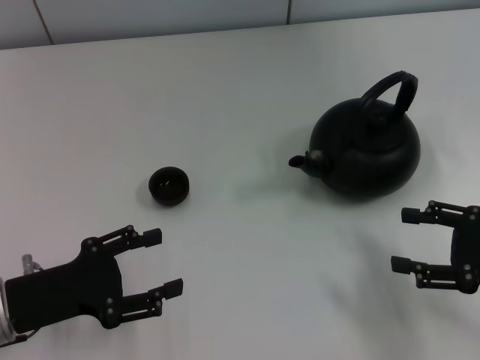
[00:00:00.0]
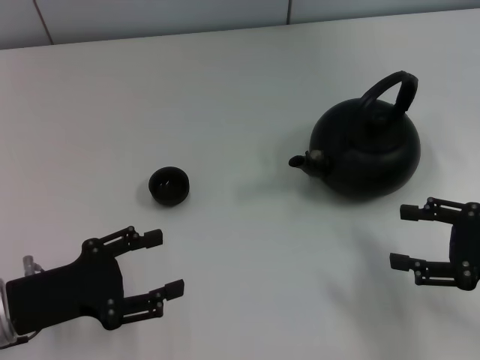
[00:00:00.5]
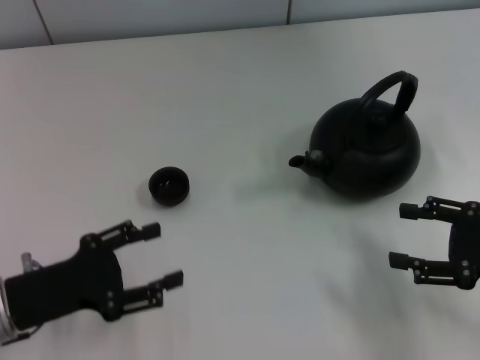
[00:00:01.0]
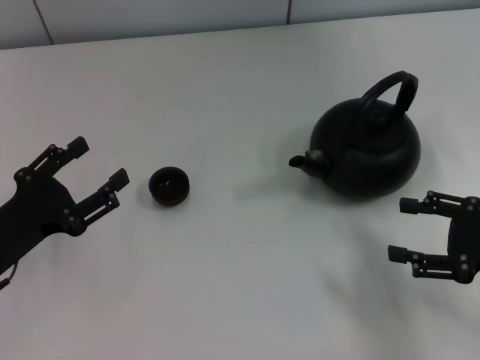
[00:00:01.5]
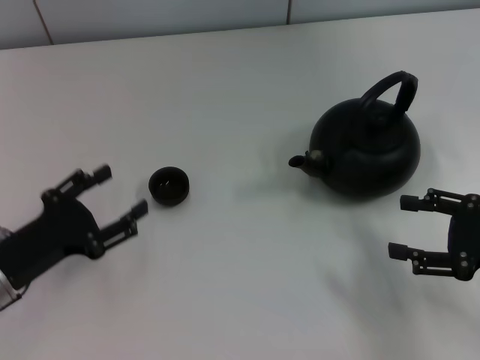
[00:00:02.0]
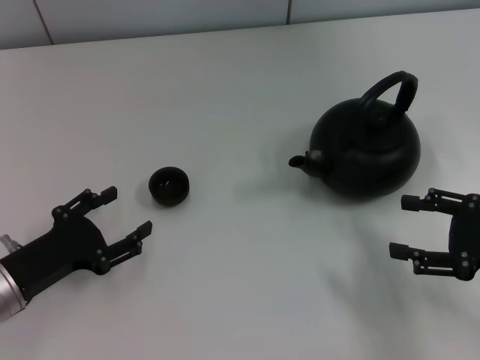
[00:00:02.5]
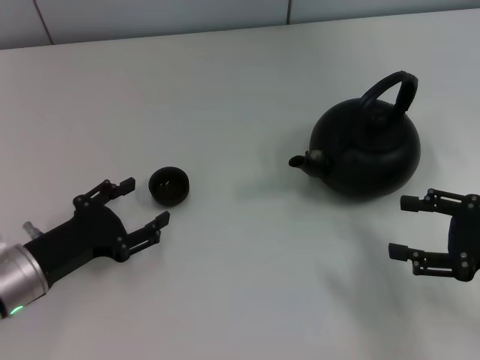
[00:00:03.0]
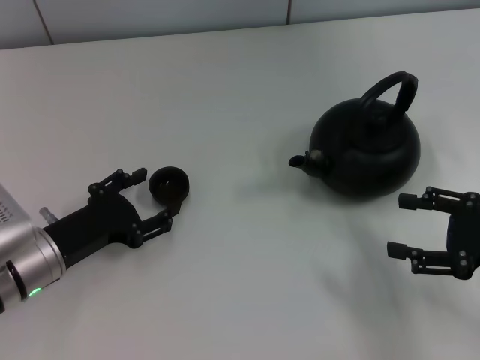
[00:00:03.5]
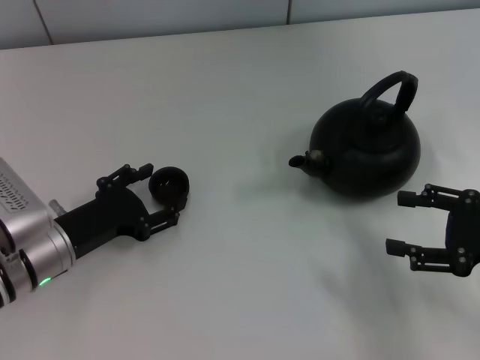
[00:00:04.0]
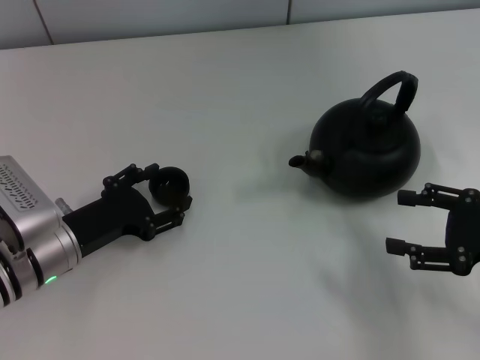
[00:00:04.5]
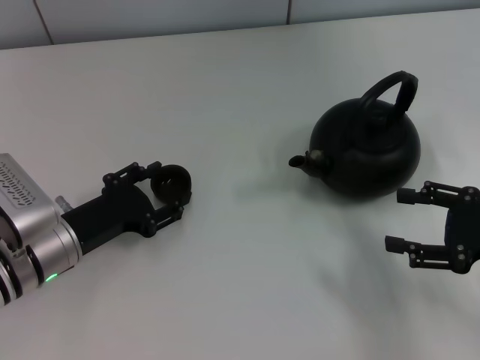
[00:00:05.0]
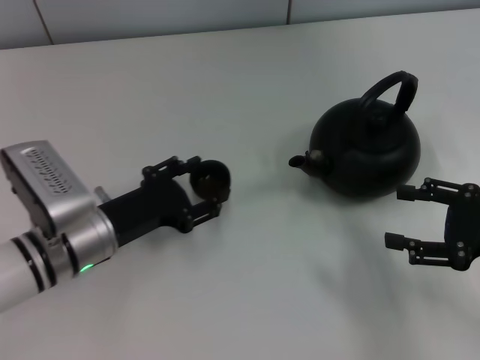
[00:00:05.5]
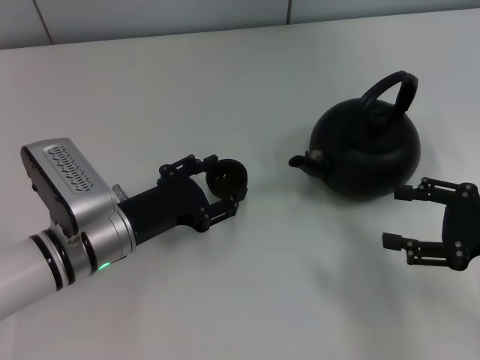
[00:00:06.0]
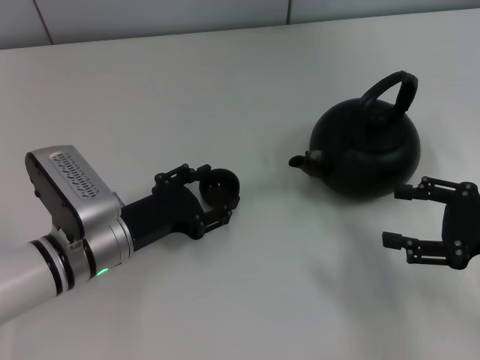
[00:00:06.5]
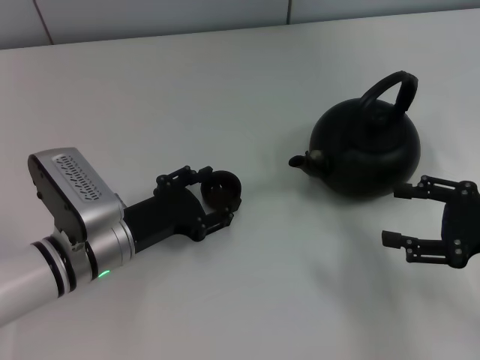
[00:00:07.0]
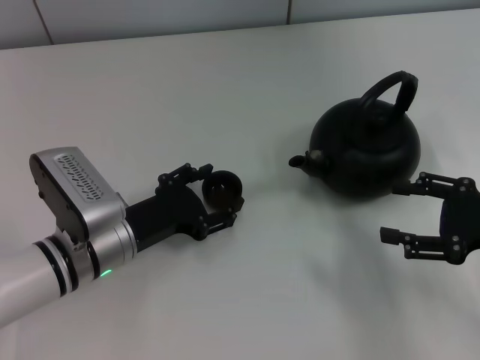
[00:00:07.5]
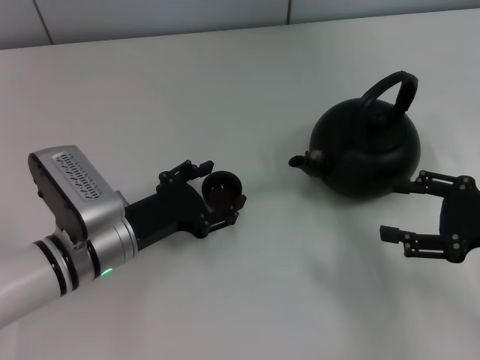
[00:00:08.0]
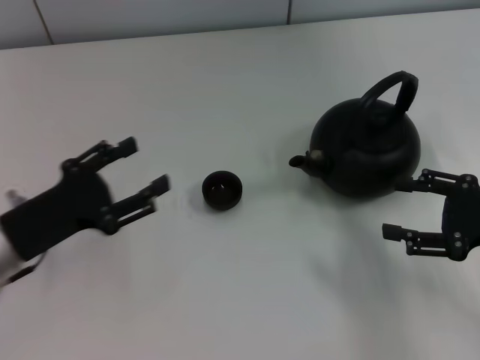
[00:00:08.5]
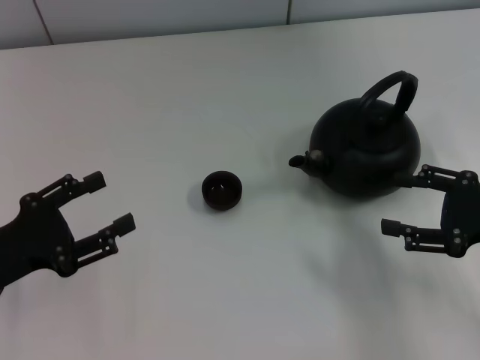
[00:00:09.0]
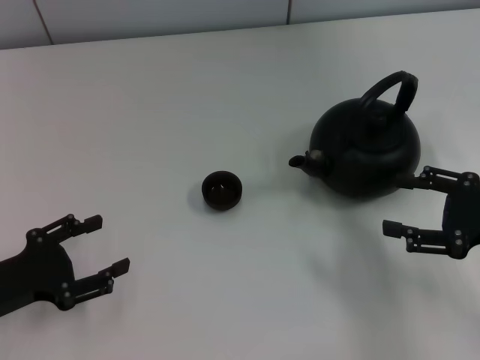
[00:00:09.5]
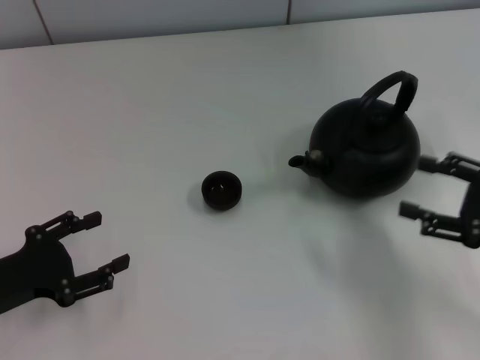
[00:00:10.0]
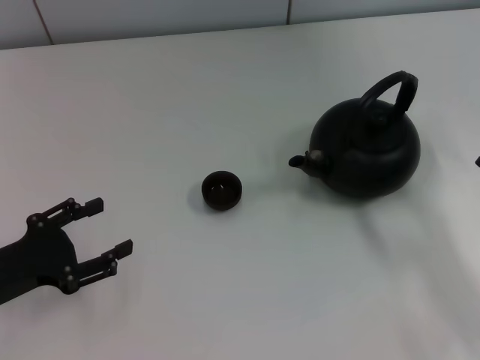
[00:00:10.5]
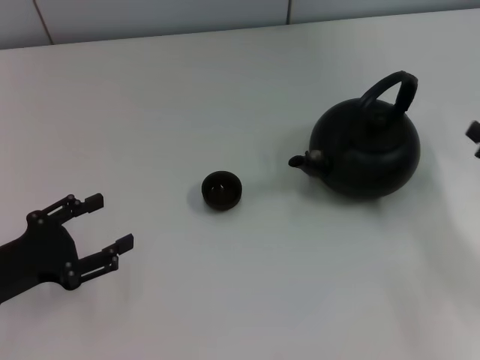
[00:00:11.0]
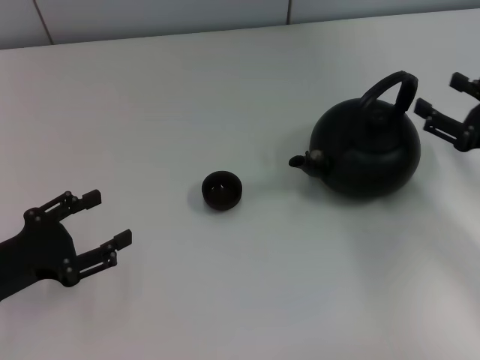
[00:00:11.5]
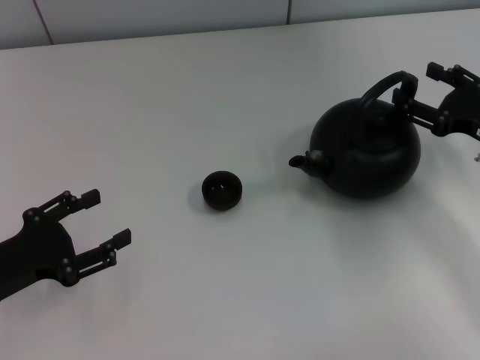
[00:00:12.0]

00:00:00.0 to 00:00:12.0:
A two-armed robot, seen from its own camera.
Task of the whole recording: Grasp the handle of the teapot with one hand and pour tea into the teacup.
Step, 00:00:00.0 to 00:00:05.0: Pick up the teacup with the left gripper.
Step, 00:00:05.5 to 00:00:08.0: Place the teacup in the center of view with the left gripper.
00:00:02.0 to 00:00:04.0: The left gripper shifts by about 5 cm.
00:00:04.0 to 00:00:06.0: The left gripper goes approximately 5 cm to the right, and closes up.
00:00:06.0 to 00:00:08.0: The left gripper opens its fingers.
00:00:08.0 to 00:00:10.0: The left gripper shifts roughly 15 cm to the left and backward.
00:00:10.0 to 00:00:12.0: The right gripper heads forward, covering about 10 cm.

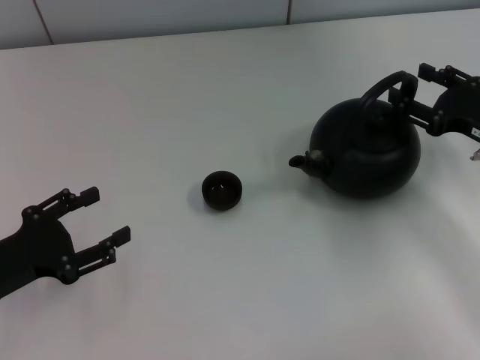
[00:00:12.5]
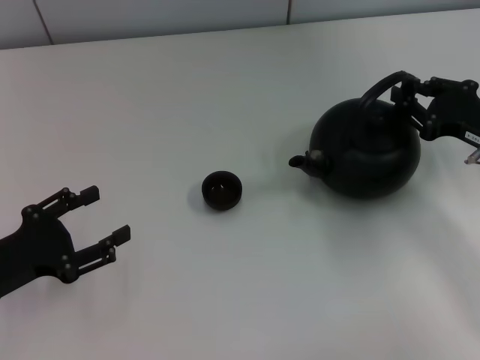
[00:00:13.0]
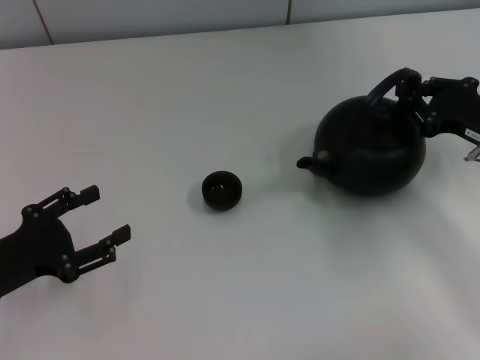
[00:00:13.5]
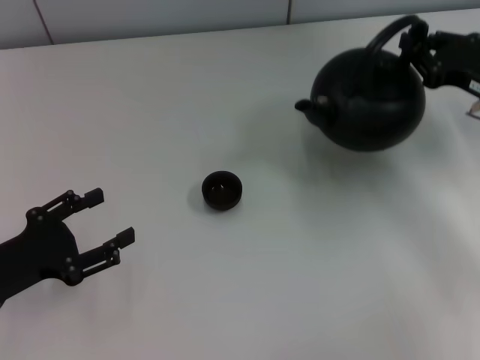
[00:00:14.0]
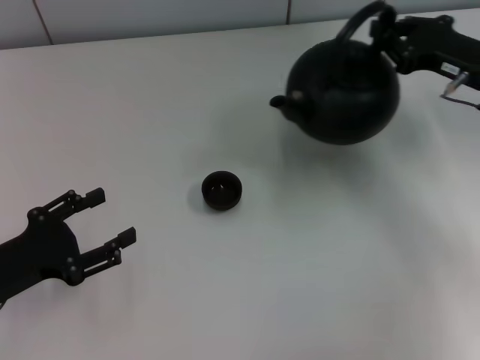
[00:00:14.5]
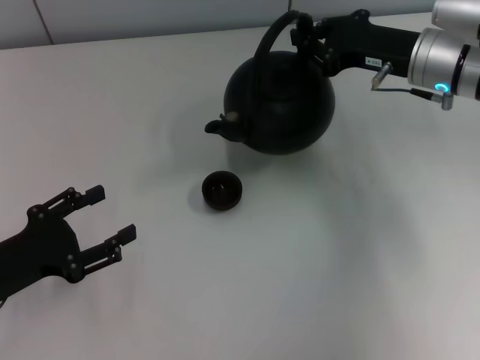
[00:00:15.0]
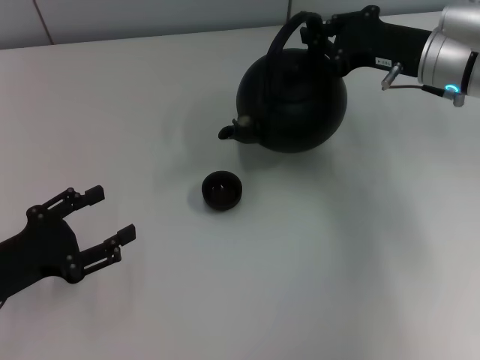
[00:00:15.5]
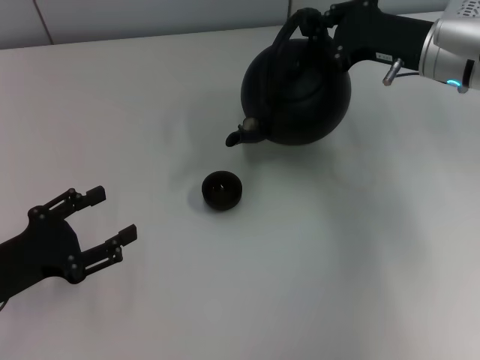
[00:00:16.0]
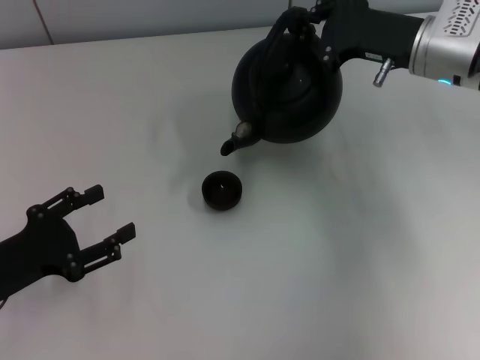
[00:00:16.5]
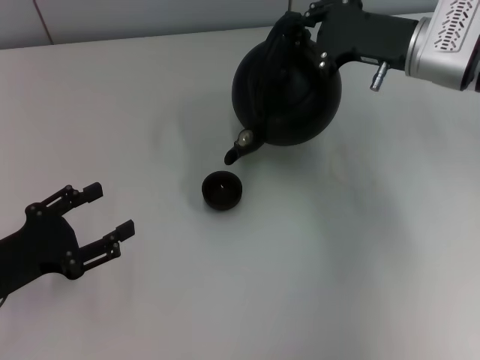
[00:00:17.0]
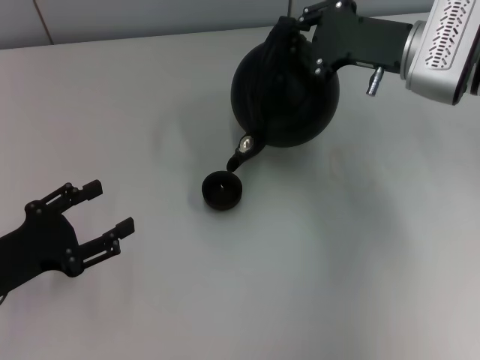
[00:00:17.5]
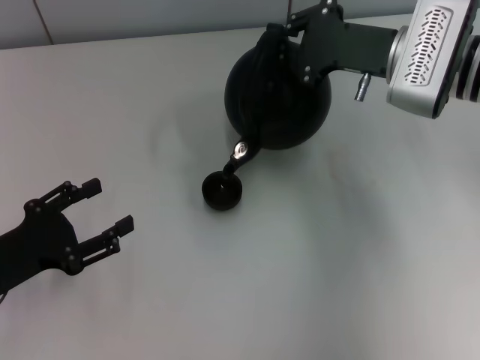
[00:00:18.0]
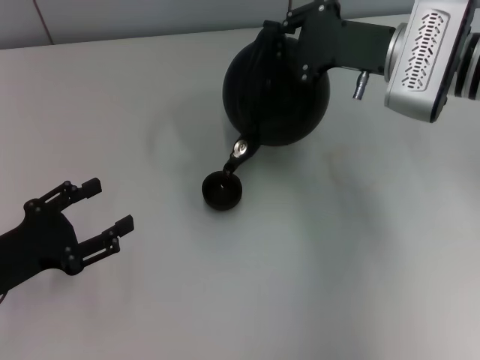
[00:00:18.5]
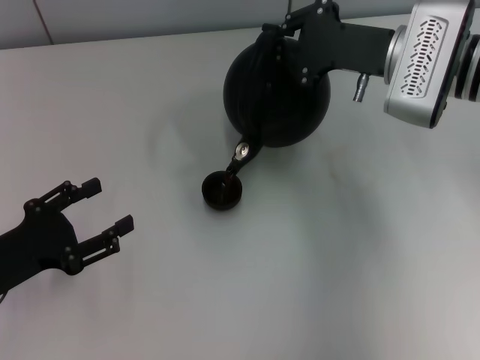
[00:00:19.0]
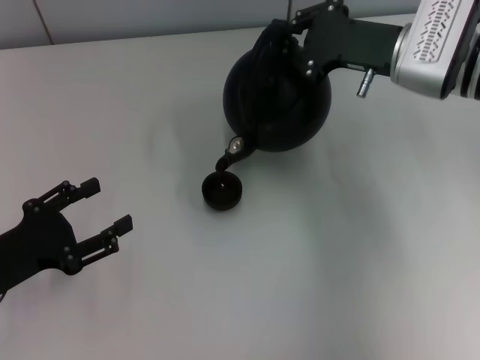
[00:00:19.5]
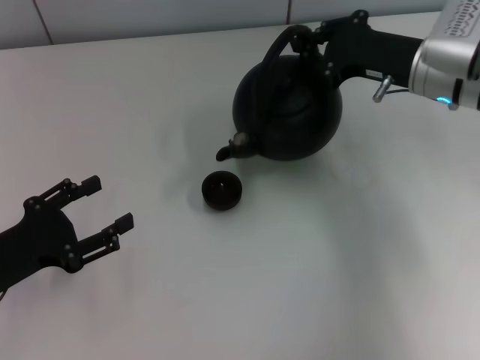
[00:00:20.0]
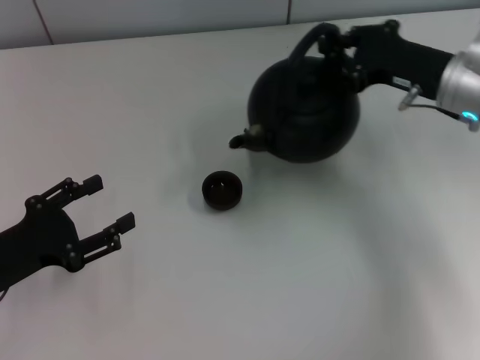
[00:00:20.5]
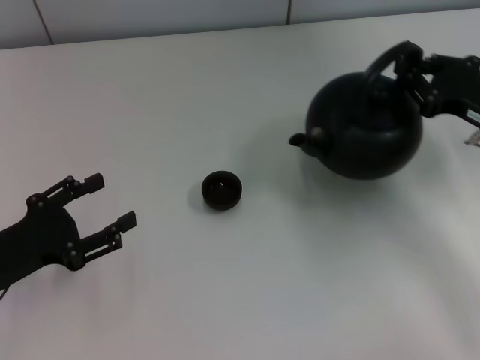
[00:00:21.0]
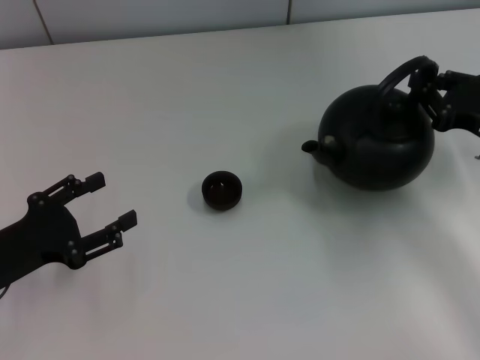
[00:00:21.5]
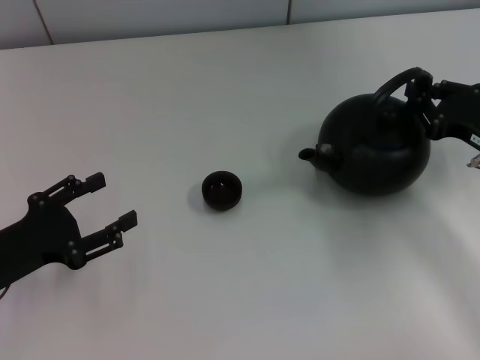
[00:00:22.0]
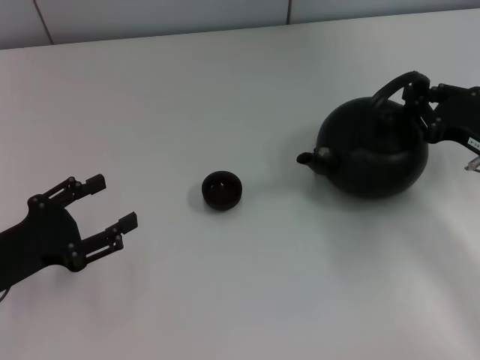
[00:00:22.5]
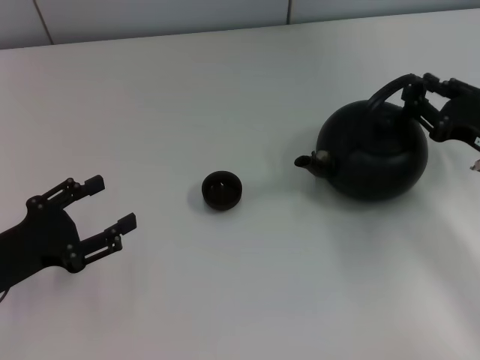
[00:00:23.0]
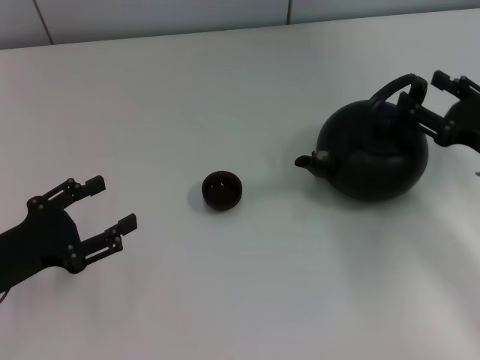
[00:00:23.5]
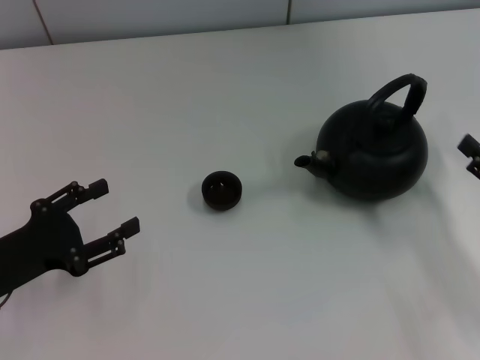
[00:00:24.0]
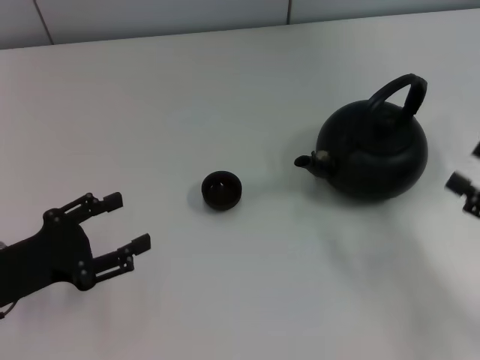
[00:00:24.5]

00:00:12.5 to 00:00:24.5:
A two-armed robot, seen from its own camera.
Task of the whole recording: Grasp the handle of the teapot with one hand and pour tea into the teacup.
Step, 00:00:20.5 to 00:00:23.5: Put down the teapot with the right gripper.
00:00:12.5 to 00:00:14.5: The right gripper travels forward by about 5 cm, and closes its fingers.
00:00:14.5 to 00:00:16.5: The right gripper moves to the left, roughly 5 cm.
00:00:16.5 to 00:00:18.5: The grippers move only a little.
00:00:18.5 to 00:00:20.5: The right gripper shifts by some 5 cm.
00:00:20.5 to 00:00:22.5: The right gripper is displaced backward, to the right and downward by about 10 cm.
00:00:22.5 to 00:00:24.5: The right gripper moves backward, about 10 cm, and opens its fingers.

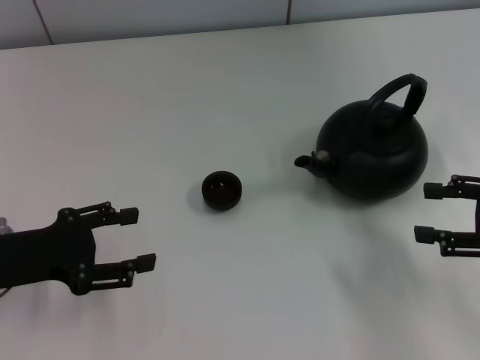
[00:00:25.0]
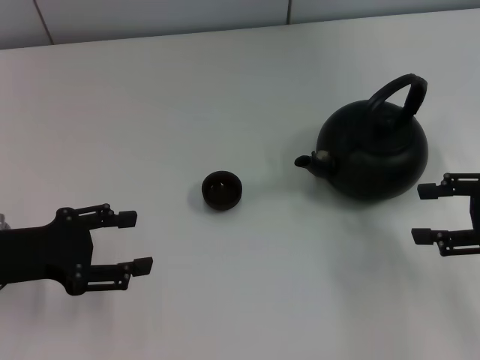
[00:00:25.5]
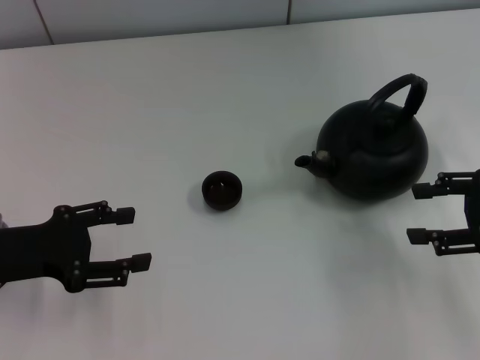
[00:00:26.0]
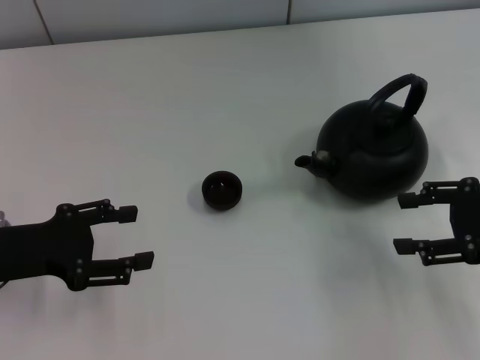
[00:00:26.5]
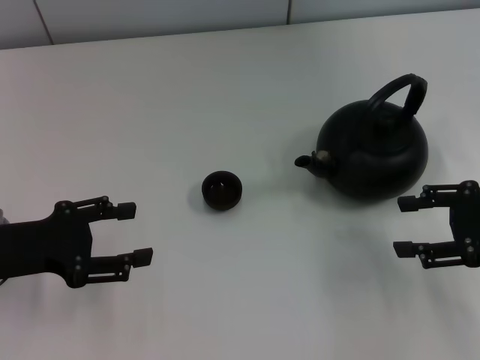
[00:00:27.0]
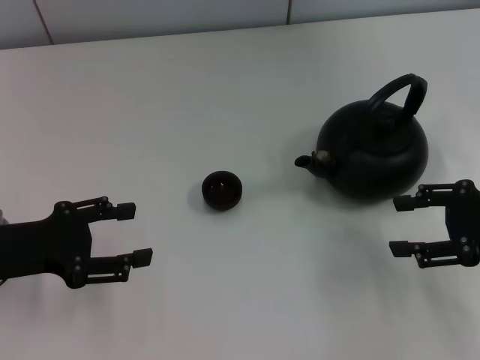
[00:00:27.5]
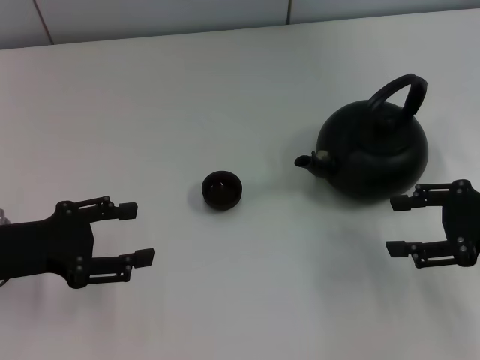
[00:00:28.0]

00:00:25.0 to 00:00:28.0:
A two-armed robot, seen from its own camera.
Task of the whole recording: Grasp the handle of the teapot with one hand and pour tea into the teacup.
00:00:25.0 to 00:00:26.5: There are only small adjustments of the grippers.
00:00:26.5 to 00:00:28.0: Both grippers stay about where they are.
